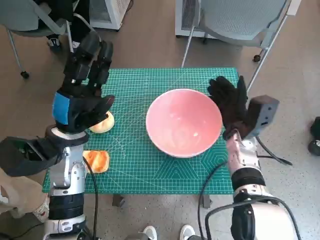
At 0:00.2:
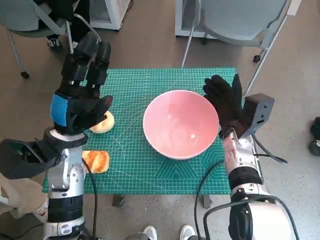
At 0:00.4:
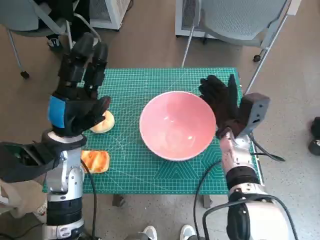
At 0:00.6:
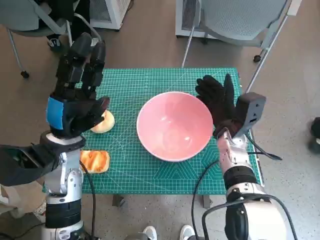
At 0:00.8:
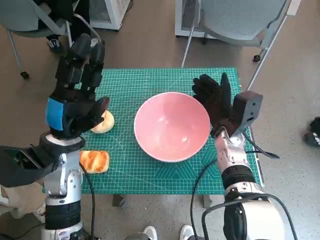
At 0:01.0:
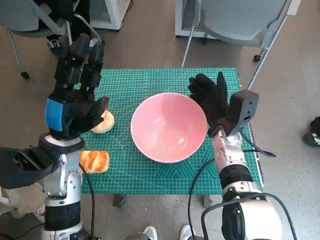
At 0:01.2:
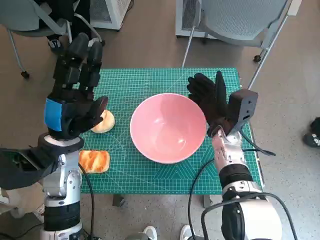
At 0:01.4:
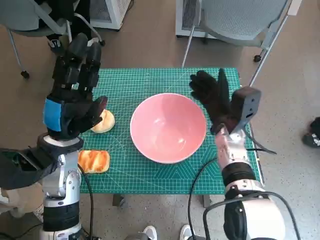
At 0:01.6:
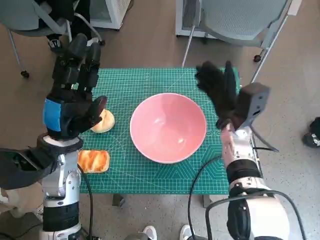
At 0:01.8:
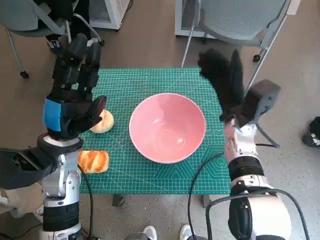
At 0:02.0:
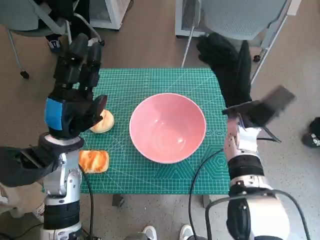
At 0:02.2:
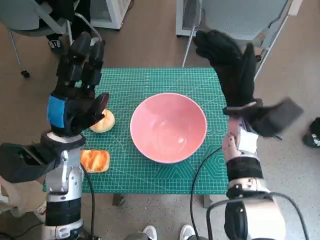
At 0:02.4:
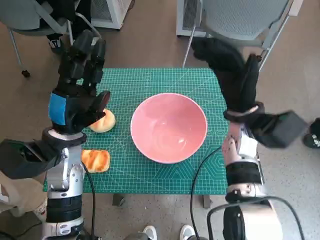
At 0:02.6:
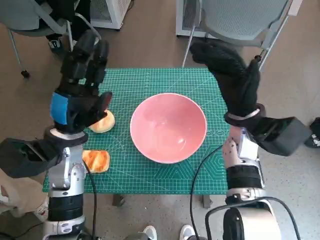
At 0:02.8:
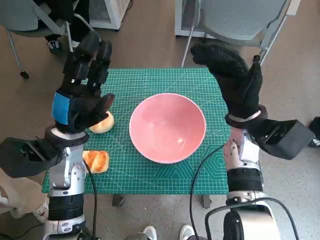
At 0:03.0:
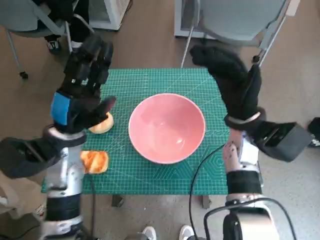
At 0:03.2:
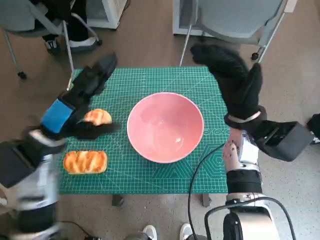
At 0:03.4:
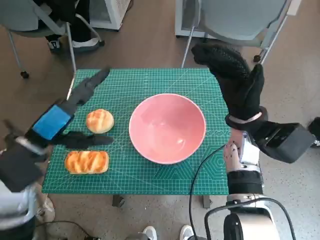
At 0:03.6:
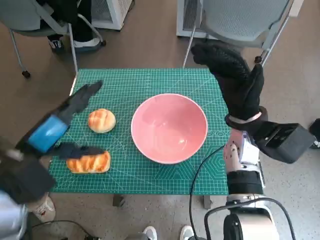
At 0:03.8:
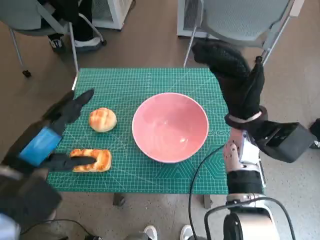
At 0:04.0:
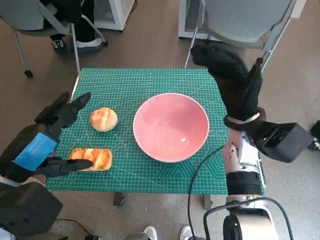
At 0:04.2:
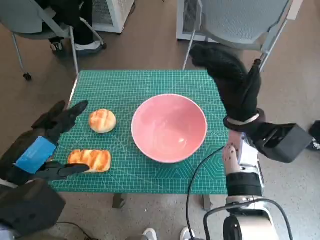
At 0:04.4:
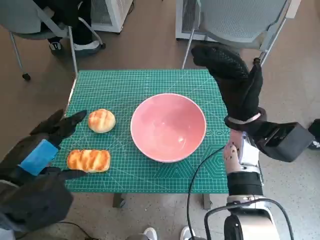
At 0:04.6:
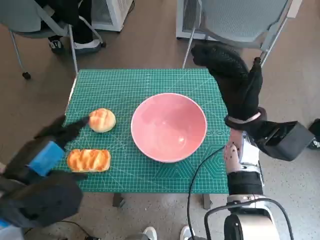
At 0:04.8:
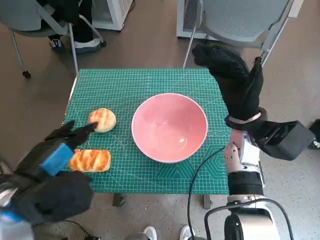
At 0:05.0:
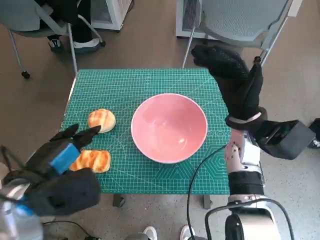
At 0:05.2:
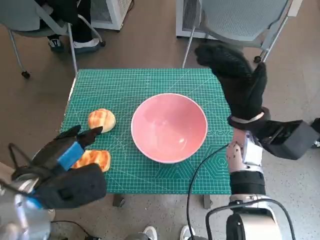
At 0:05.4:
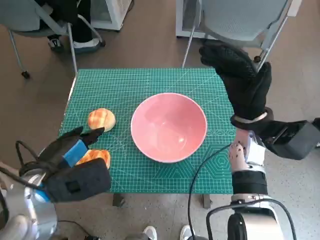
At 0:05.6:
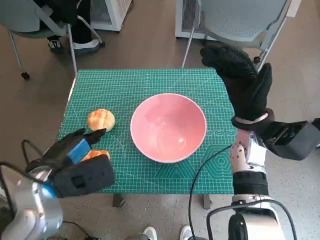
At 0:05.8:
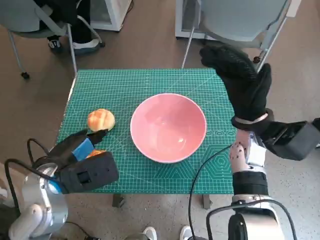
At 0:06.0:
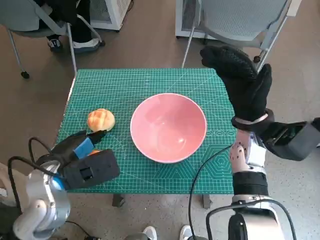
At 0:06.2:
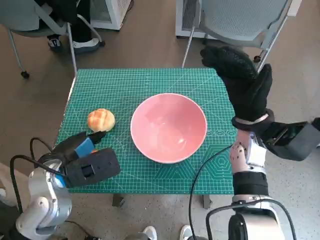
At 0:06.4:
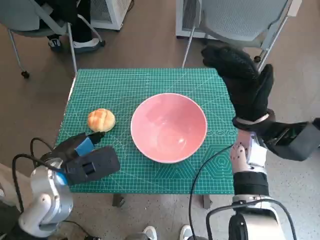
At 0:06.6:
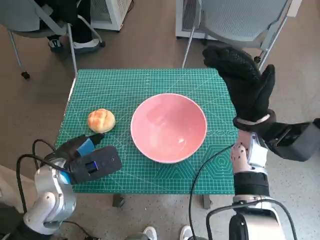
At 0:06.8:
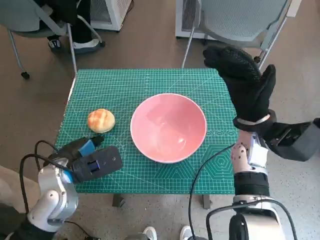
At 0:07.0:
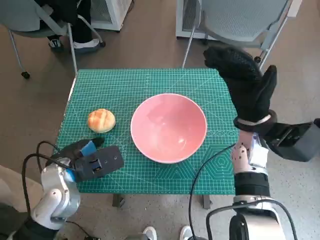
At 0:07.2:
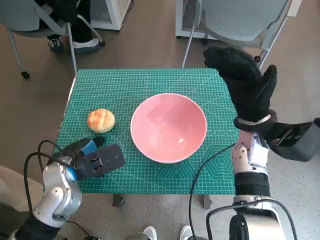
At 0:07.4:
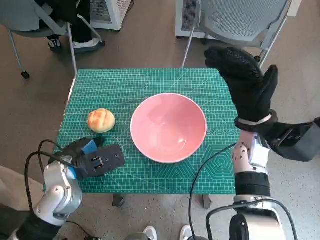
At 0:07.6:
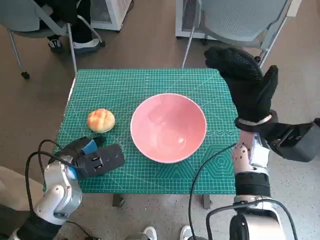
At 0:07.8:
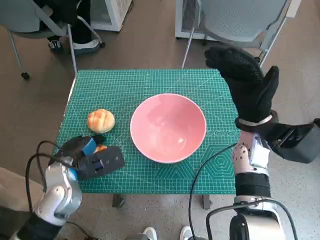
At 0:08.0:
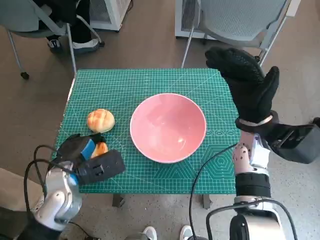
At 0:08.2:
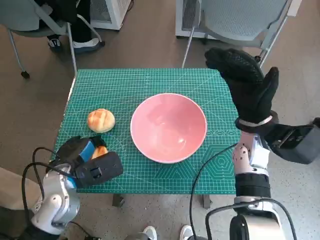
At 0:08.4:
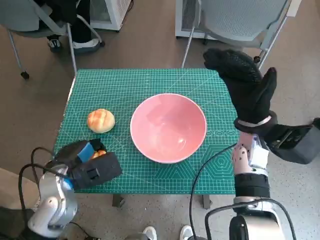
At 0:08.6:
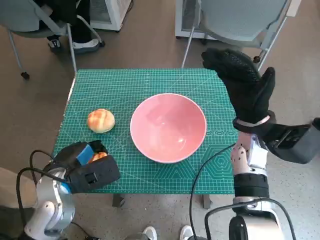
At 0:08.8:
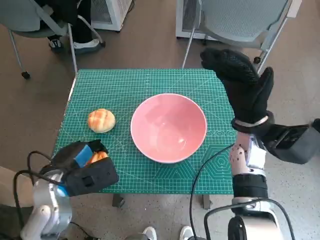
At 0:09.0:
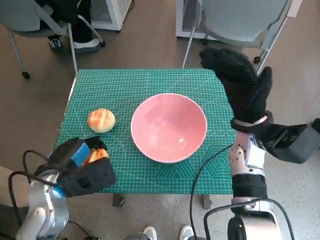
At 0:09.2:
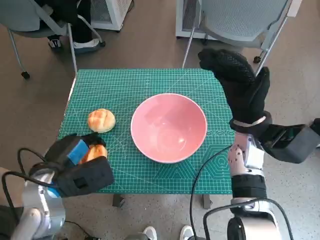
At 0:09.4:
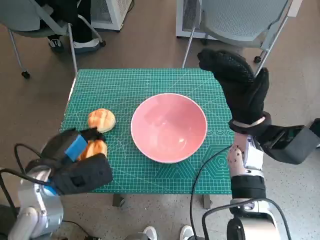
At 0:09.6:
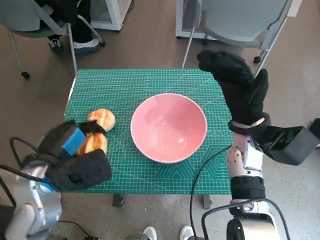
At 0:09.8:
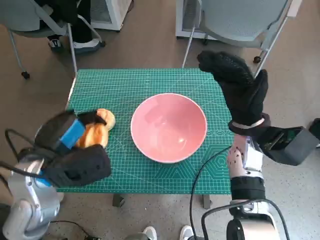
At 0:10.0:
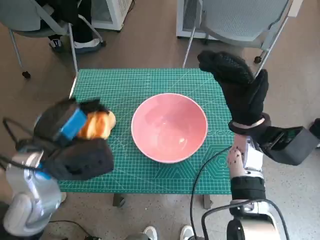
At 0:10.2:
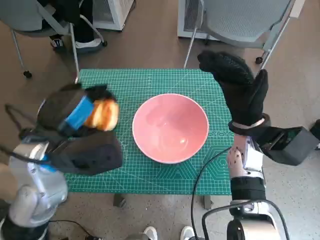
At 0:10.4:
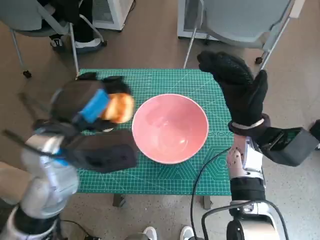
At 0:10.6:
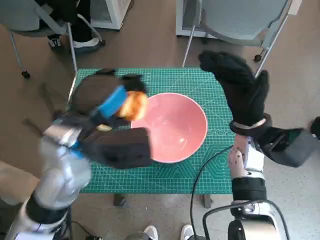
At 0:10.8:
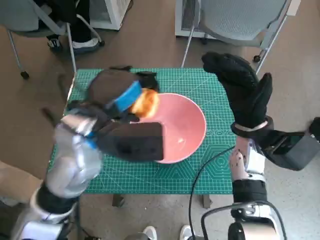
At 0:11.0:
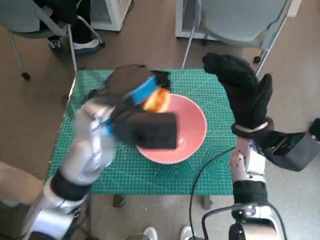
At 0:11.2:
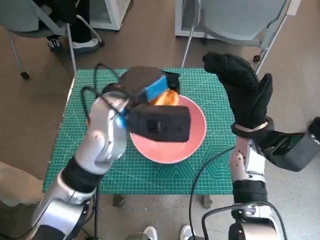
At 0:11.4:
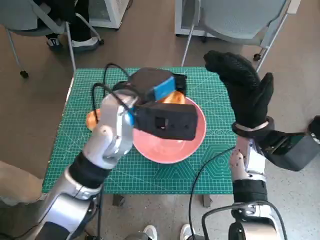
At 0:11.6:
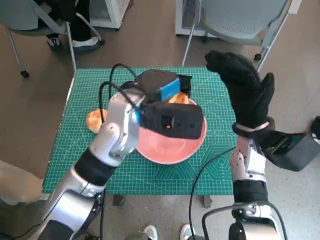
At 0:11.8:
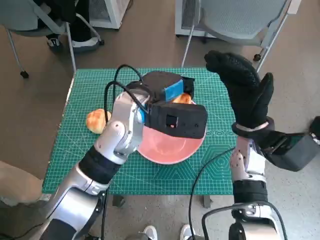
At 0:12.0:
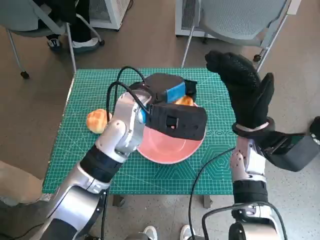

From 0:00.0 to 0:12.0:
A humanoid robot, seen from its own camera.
Step, from 0:01.6 to 0:08.0: Grasp the long bread with left hand.
From 0:01.6 to 0:03.0: The right hand moves roughly 5 cm.
From 0:03.0 to 0:04.4: The left hand travels backward and upward by about 15 cm.
From 0:04.4 to 0:06.0: The left hand goes roughly 10 cm downward and forward.
From 0:06.0 to 0:07.6: The left hand shifts by about 5 cm.
From 0:07.6 to 0:09.0: The hands stay close to where they were, moving slightly.
From 0:09.0 to 0:10.4: The left hand is displaced upward and to the right by about 10 cm.
From 0:10.4 to 0:12.0: The left hand goes approximately 15 cm to the right and forward.

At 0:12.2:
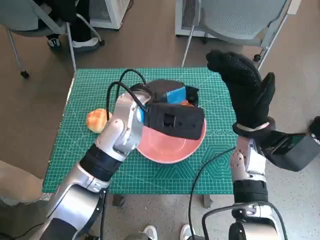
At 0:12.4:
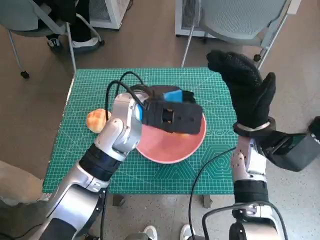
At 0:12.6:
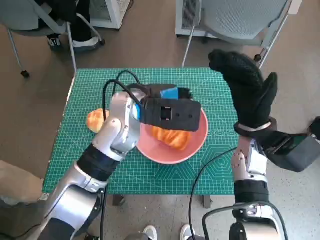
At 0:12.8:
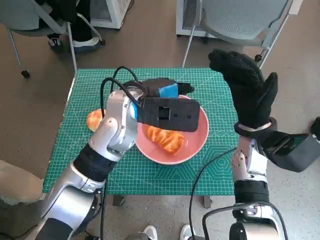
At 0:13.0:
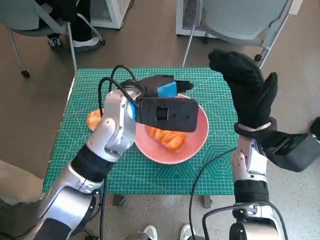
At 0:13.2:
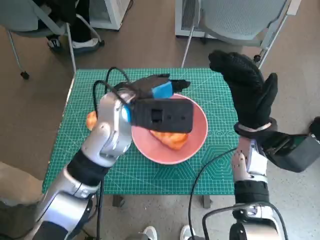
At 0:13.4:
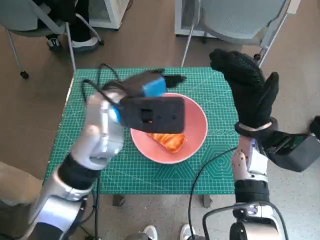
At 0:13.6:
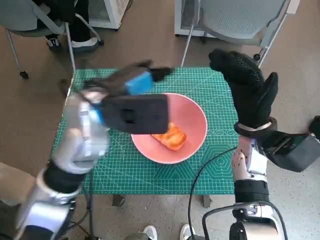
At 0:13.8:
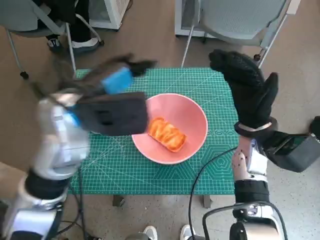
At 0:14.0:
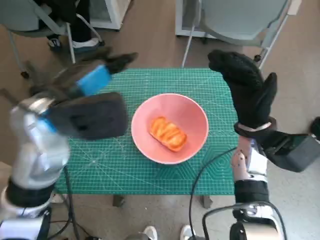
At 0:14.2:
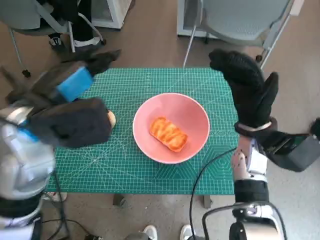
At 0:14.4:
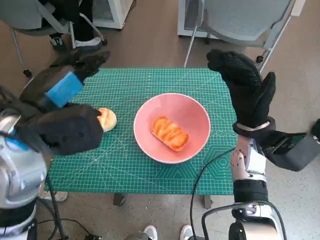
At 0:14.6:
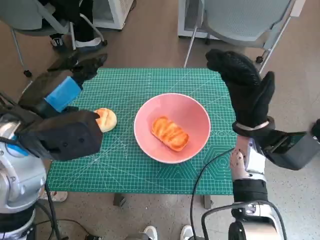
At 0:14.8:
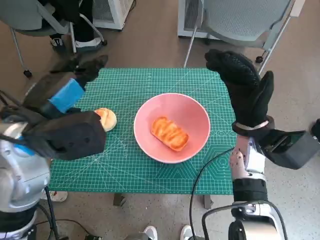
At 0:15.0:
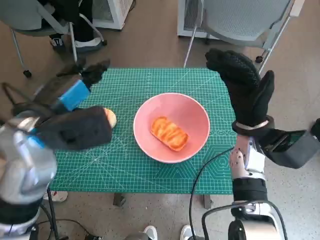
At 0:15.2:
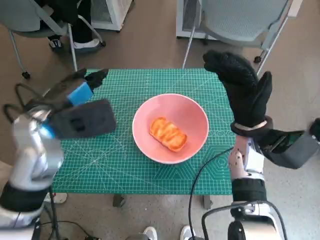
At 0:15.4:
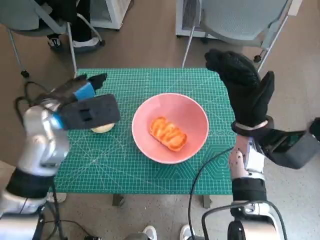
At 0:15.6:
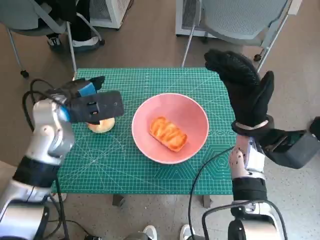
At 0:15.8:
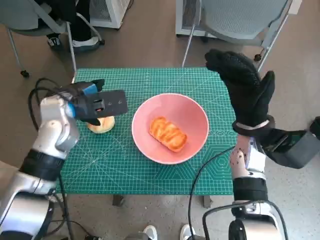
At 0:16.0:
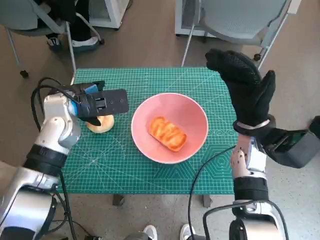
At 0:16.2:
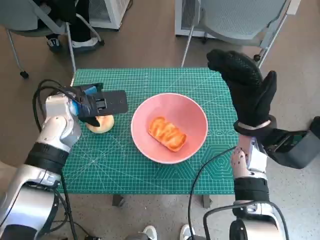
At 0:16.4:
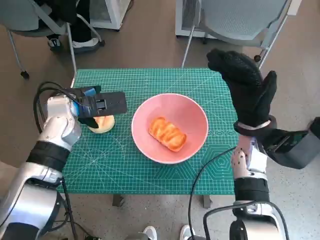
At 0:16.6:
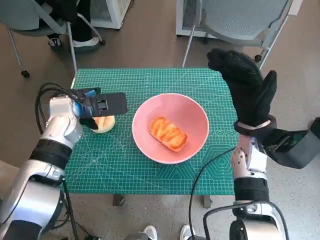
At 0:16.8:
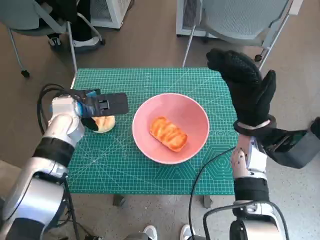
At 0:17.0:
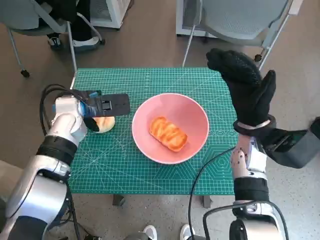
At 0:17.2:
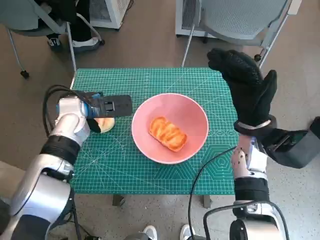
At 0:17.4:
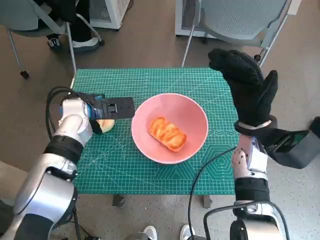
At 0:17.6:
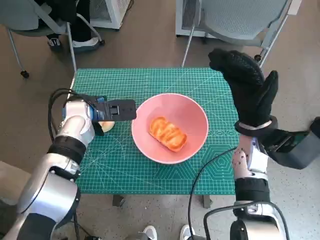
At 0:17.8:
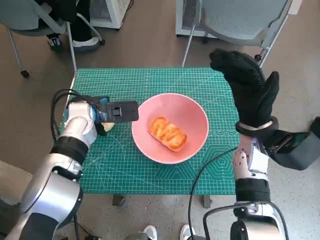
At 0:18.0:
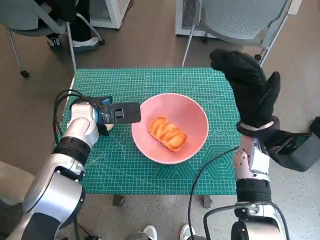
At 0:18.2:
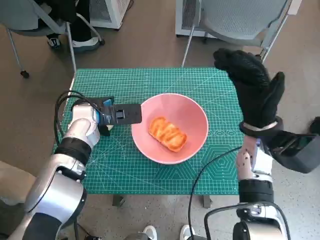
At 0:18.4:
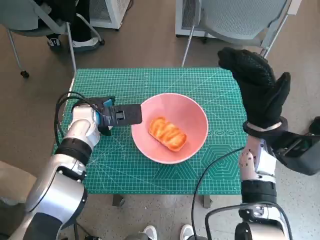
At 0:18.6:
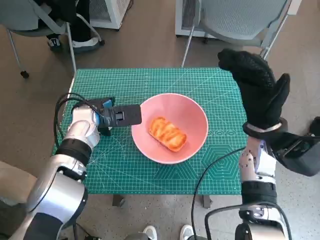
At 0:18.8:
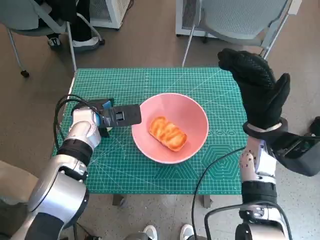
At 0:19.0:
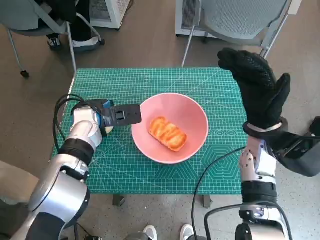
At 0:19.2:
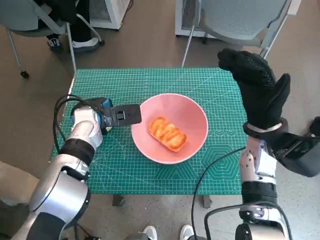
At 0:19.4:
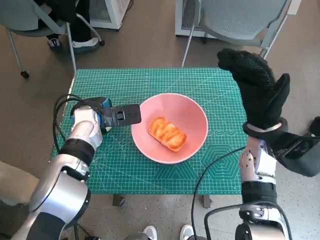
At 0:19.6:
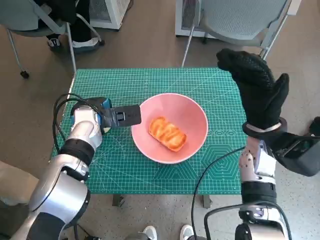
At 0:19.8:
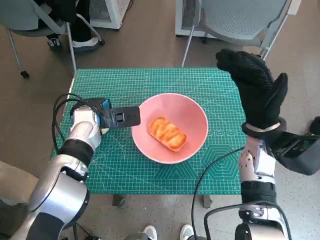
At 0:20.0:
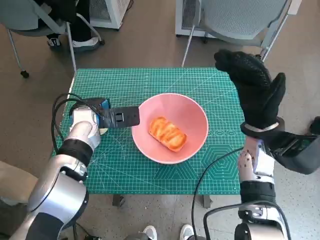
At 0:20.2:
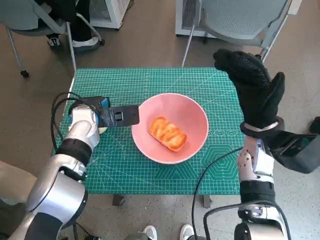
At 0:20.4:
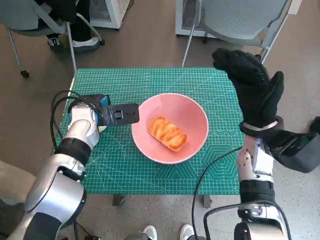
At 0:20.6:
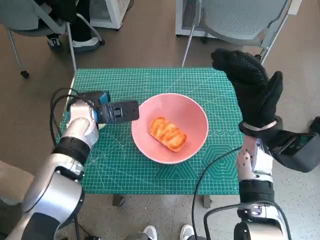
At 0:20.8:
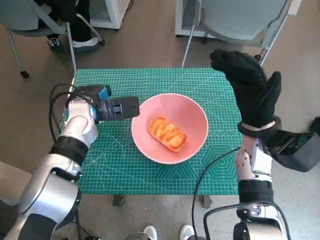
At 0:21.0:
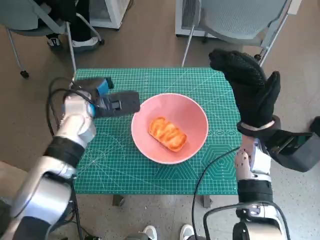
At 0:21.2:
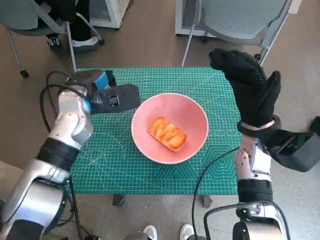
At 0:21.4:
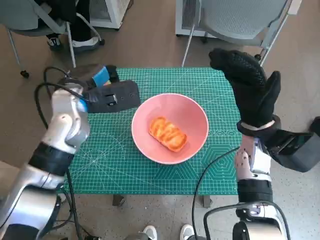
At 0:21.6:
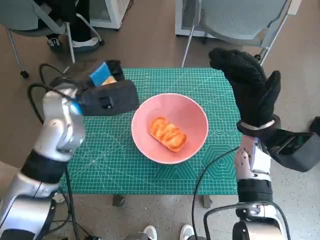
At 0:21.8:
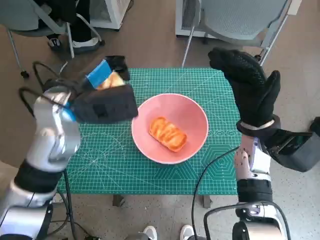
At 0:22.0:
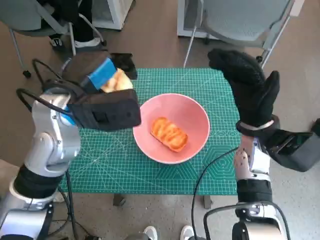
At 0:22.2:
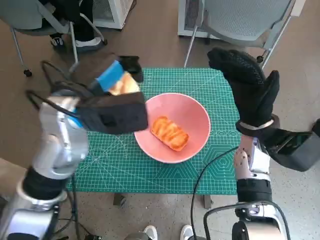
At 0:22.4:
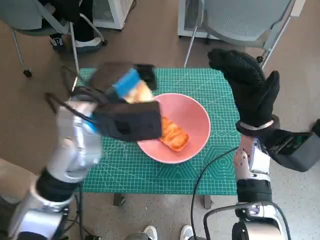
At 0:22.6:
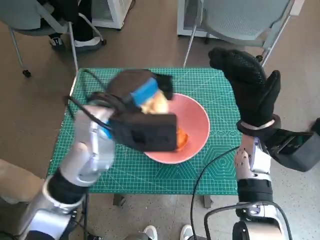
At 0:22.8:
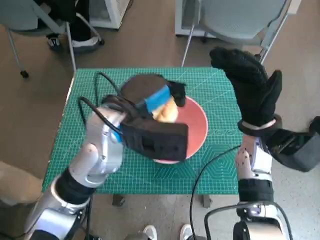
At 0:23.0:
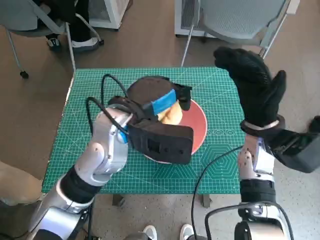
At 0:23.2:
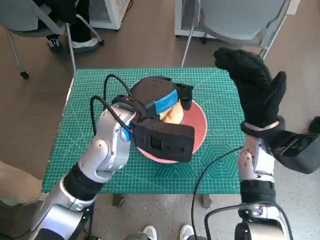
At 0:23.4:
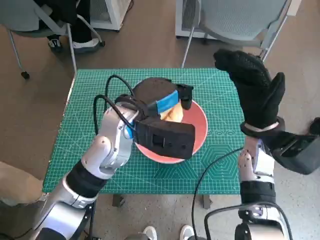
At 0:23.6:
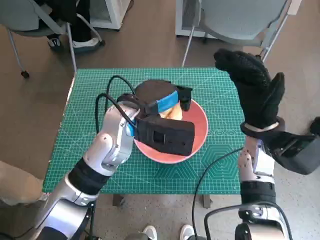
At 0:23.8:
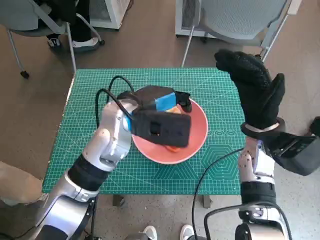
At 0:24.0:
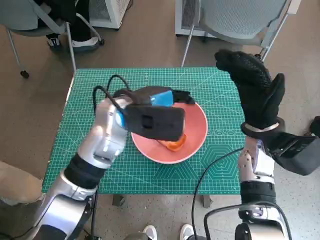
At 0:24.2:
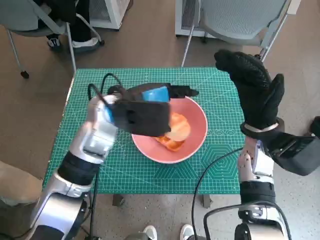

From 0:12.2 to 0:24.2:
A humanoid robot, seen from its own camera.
Step, from 0:12.8 to 0:19.2: Grasp the round bread with left hand.
From 0:12.2 to 0:13.8: The left hand travels to the left and upward by about 10 cm.
From 0:13.8 to 0:15.2: The left hand moves to the left, about 5 cm.
From 0:15.2 to 0:16.6: The left hand shifts approximately 10 cm forward and downward.
From 0:18.2 to 0:19.8: There are only small adjustments of the hands.
From 0:19.8 to 0:21.2: The left hand goes some 5 cm upward.
From 0:21.2 to 0:22.6: The left hand travels to the right, backward and upward by about 10 cm.
